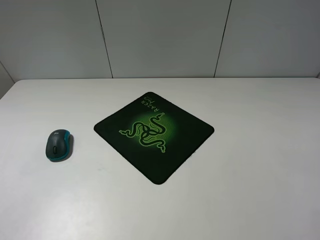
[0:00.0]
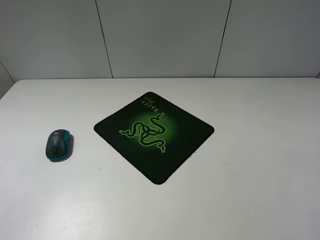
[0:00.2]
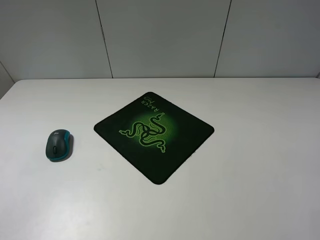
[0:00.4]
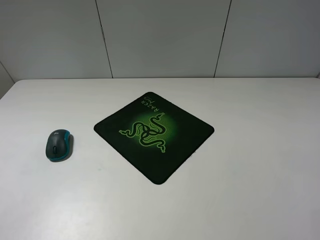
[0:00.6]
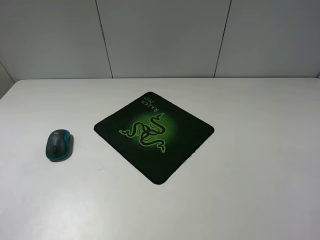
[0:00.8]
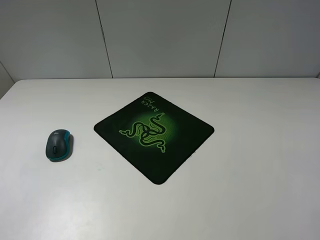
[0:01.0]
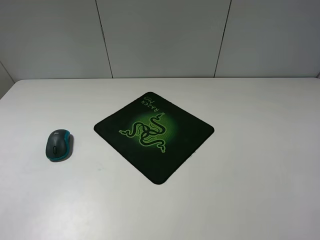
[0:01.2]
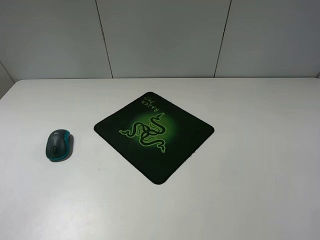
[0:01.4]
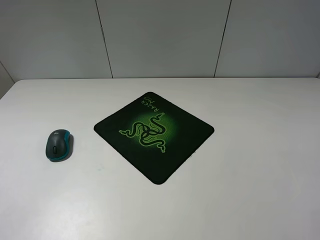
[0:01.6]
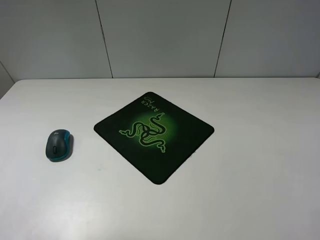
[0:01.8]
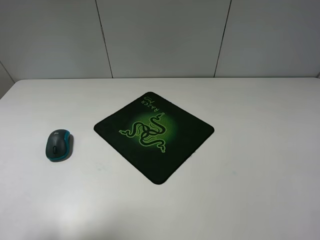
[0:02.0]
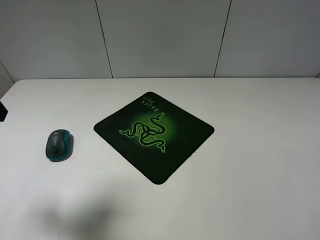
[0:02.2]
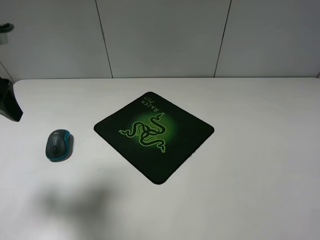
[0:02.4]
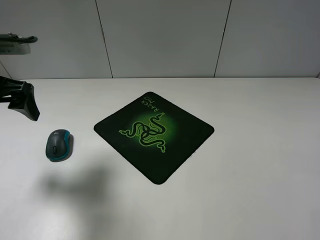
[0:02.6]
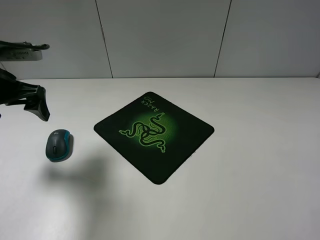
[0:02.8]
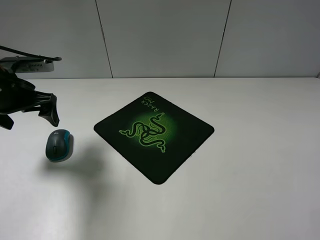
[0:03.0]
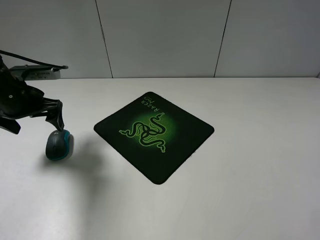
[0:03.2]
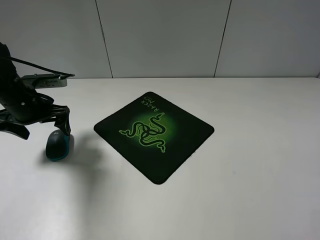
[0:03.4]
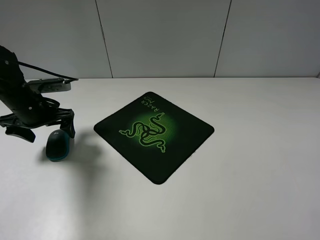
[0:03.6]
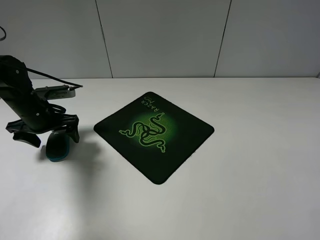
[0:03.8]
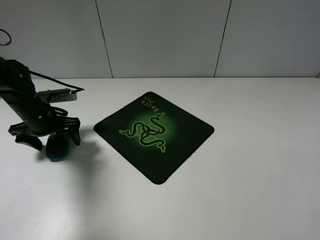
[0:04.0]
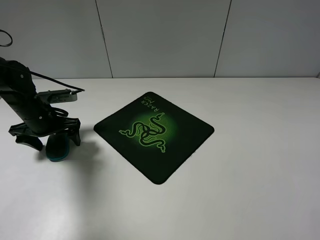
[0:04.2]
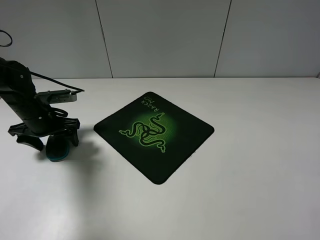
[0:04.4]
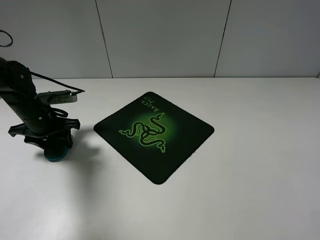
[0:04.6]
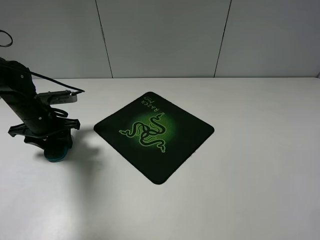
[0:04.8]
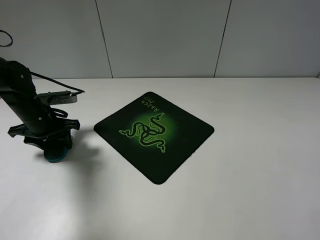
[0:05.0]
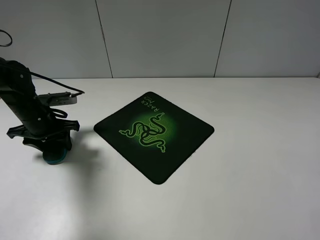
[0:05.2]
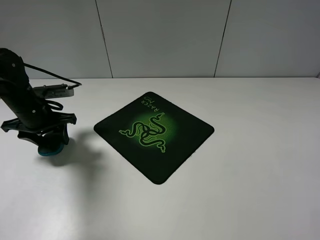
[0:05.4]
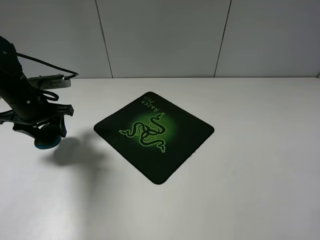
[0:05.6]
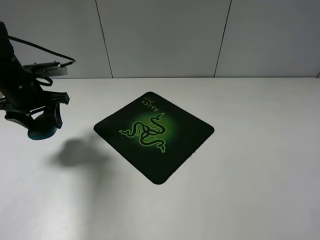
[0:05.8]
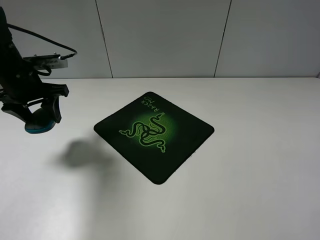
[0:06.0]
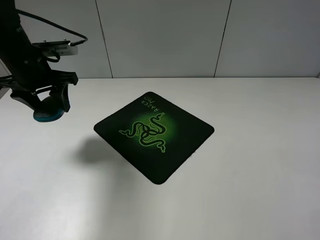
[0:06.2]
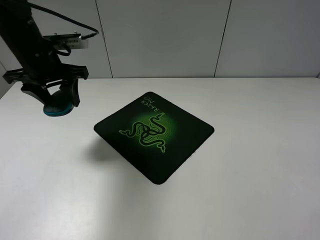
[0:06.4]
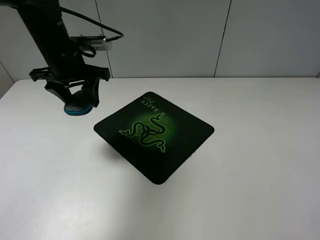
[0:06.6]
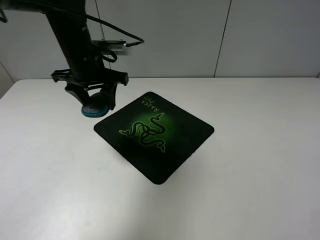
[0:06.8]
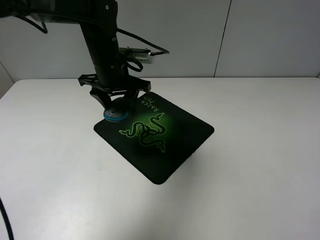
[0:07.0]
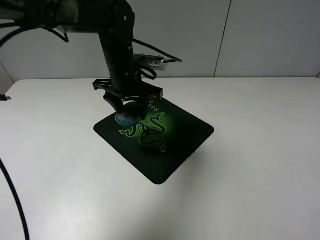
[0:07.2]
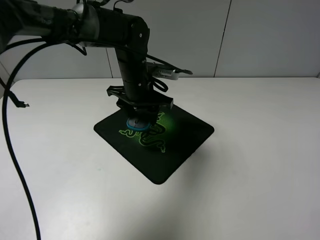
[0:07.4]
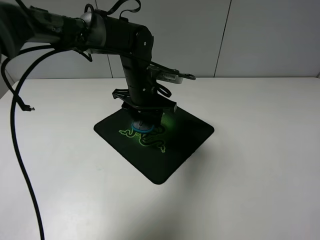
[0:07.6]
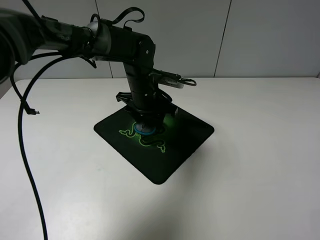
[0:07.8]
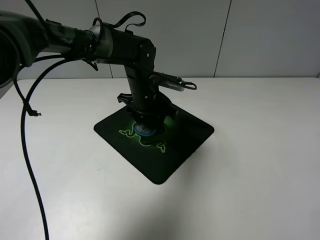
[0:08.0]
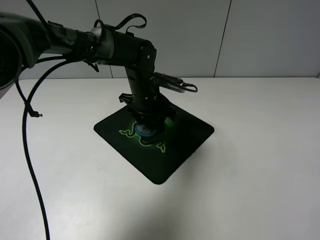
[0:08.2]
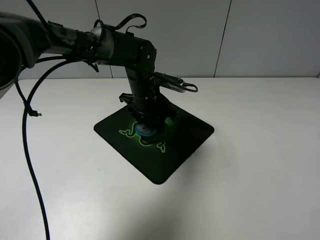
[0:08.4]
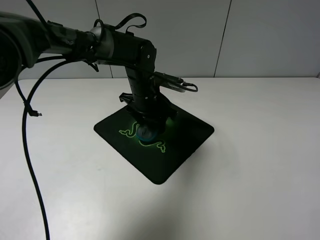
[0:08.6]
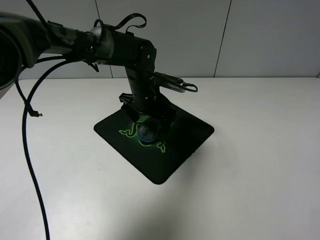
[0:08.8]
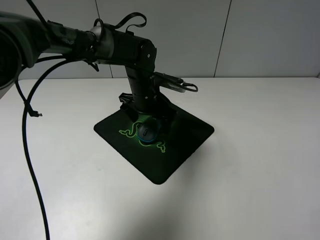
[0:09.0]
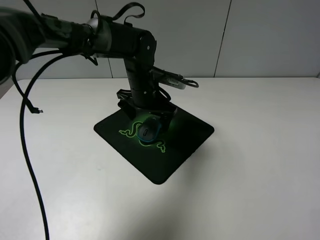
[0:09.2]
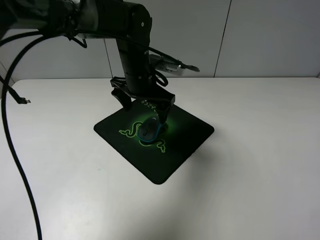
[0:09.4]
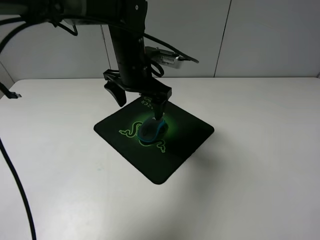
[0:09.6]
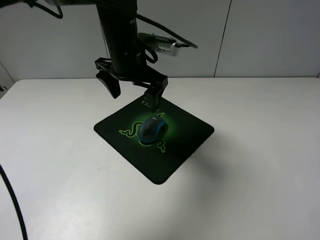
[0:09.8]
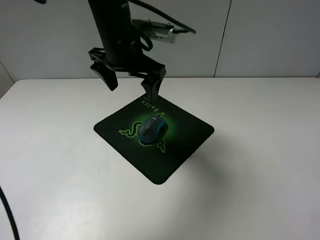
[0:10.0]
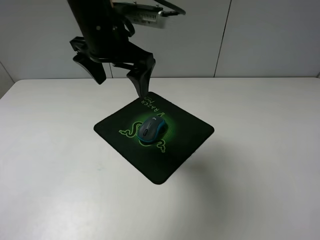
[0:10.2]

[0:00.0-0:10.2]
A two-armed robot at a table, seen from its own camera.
Step, 0:00.0 to 0:05.0: Grasp the mouse with the left gripper.
Step, 0:05.2 to 0:09.6: Place the mouse on the mouse mat with the left gripper.
0:01.4 to 0:03.0: The left gripper heads forward and downward, covering approximately 30 cm.
0:03.0 to 0:04.4: The left gripper is displaced downward by some 10 cm, and closes up.
0:04.4 to 0:05.8: The left gripper moves upward, some 10 cm, and closes up.
0:05.8 to 0:07.2: The left gripper travels to the right by approximately 20 cm.
0:07.2 to 0:08.8: The left gripper goes roughly 5 cm downward, and opens.
0:08.8 to 0:10.2: The left gripper moves upward and backward, roughly 20 cm.

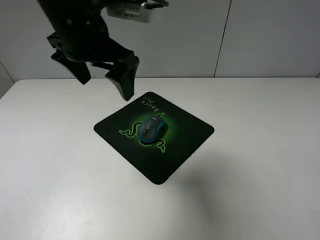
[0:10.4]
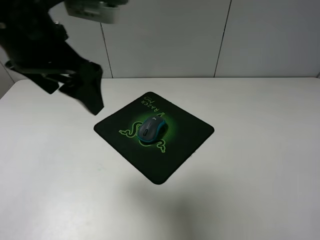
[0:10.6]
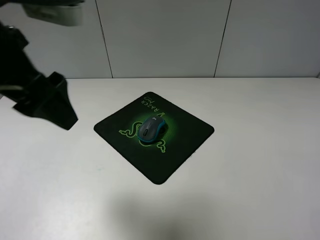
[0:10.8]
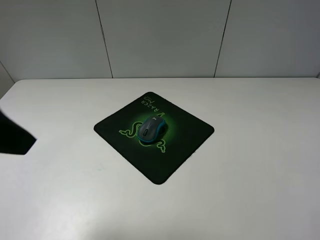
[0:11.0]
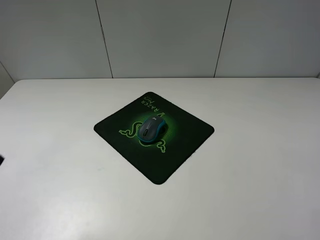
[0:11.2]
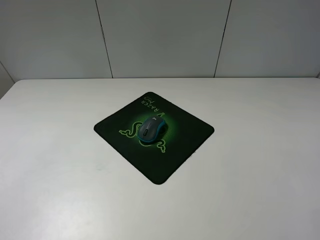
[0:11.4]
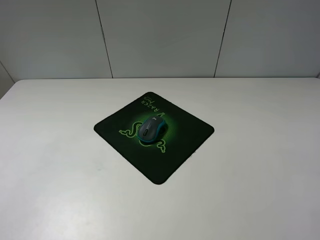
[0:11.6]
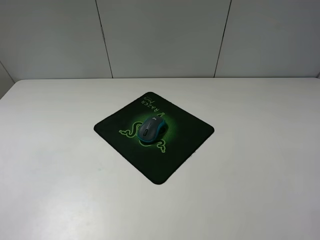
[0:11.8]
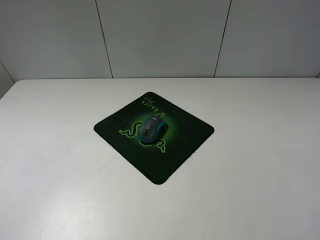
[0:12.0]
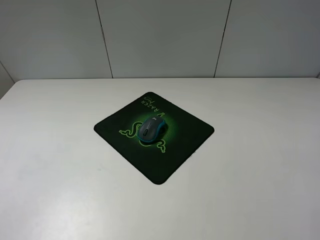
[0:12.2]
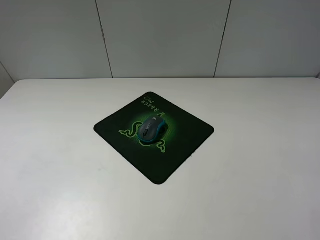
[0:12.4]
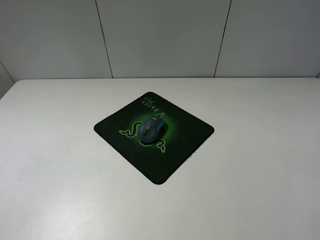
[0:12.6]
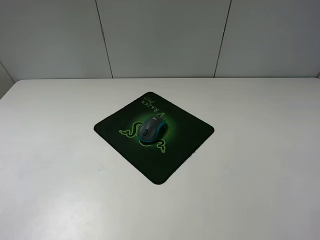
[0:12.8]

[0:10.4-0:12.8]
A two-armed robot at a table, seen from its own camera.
0:10.4 to 0:11.6: The left gripper heads backward and to the left, covering roughly 30 cm.
